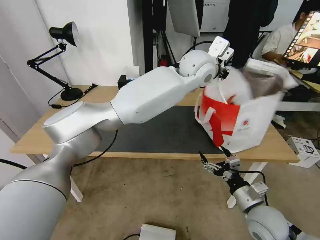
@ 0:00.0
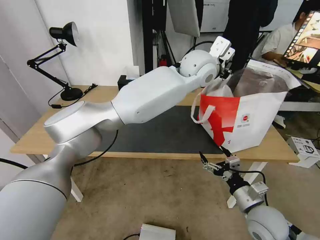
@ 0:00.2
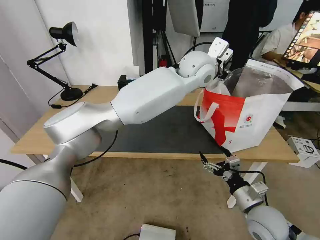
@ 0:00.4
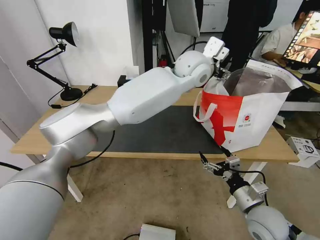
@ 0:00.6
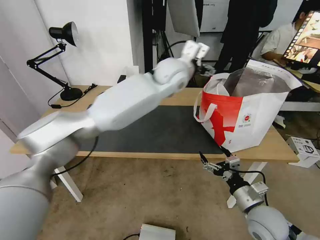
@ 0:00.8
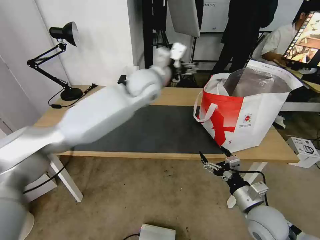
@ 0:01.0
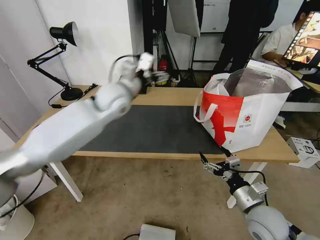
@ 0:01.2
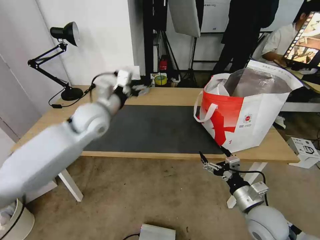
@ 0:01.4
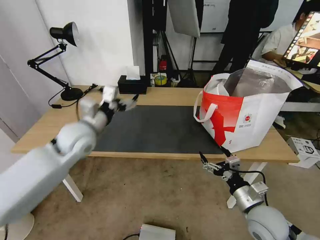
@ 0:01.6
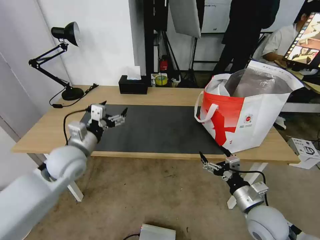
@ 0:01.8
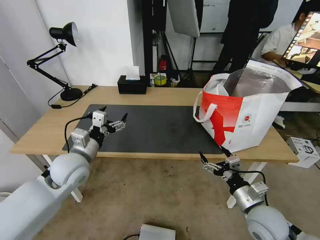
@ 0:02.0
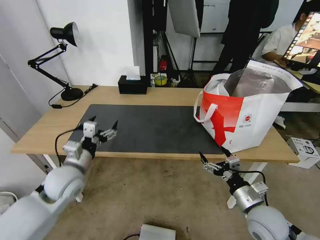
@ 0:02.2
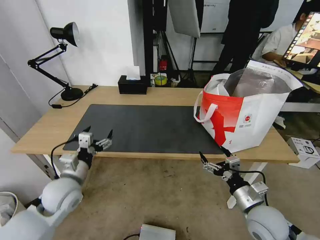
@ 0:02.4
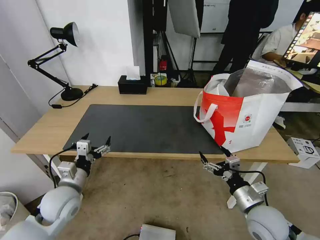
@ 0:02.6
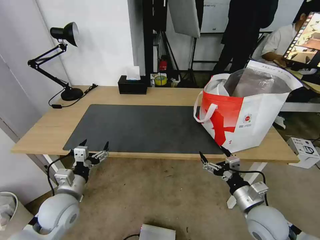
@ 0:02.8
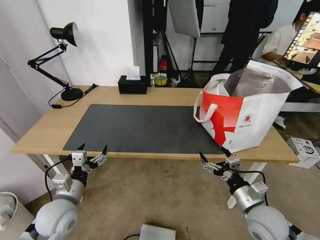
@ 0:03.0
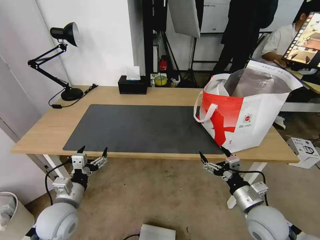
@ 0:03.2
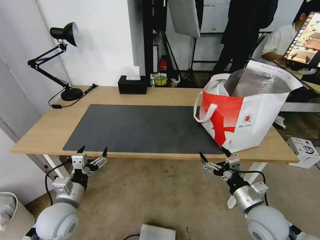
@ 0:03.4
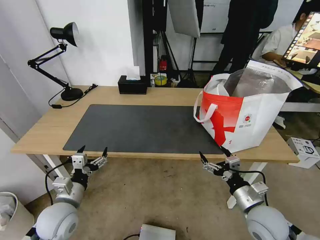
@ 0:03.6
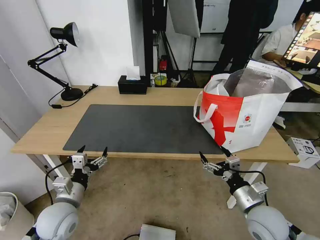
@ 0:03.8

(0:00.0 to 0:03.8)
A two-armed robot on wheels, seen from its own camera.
Task of the whole recording: Pick up the trash from the table and place it into the takeout bag.
0:00.0 - 0:01.2: The left gripper moves to the left, approximately 25 cm, and opens its fingers.
0:01.2 - 0:02.6: The left gripper is displaced backward, downward and to the left by some 35 cm.
0:02.6 - 0:03.8: The grippers make only small movements.
